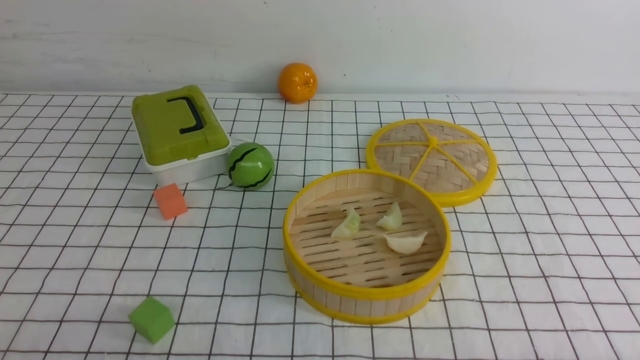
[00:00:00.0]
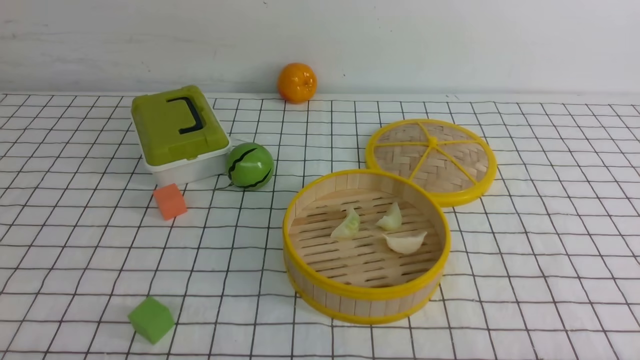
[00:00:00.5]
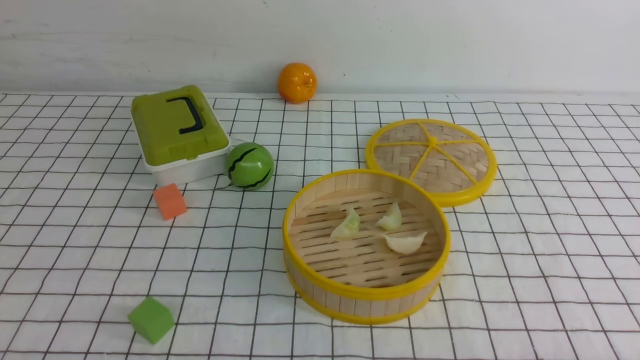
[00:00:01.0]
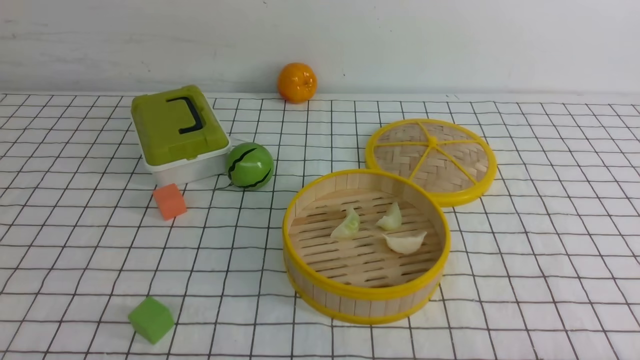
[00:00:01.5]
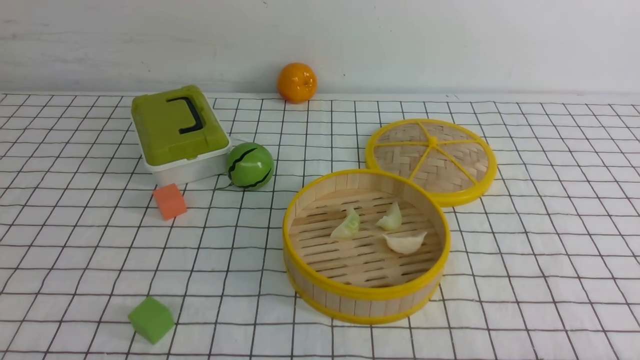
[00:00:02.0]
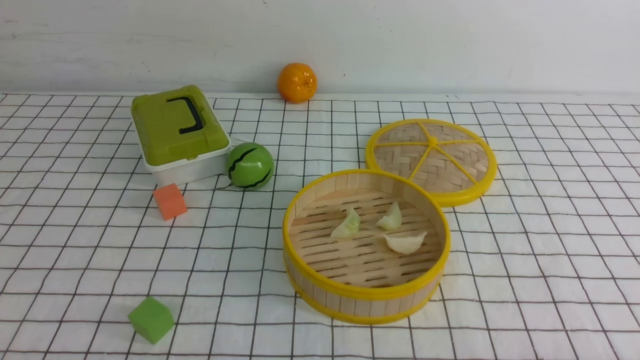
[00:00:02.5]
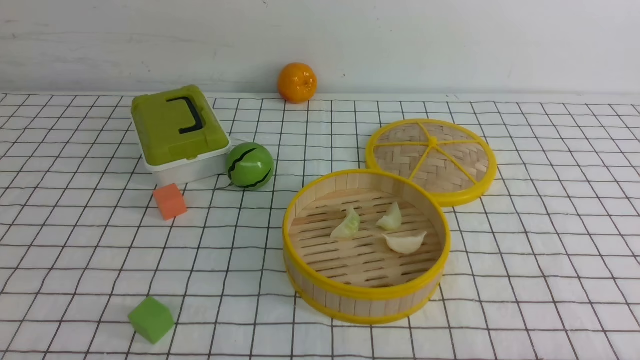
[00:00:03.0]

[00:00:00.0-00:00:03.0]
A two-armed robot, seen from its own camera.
Task of the whole recording: put the dumplings into the steamer on the table with the white tablecloth.
00:00:01.5 to 00:00:03.0: The two grippers keep their place.

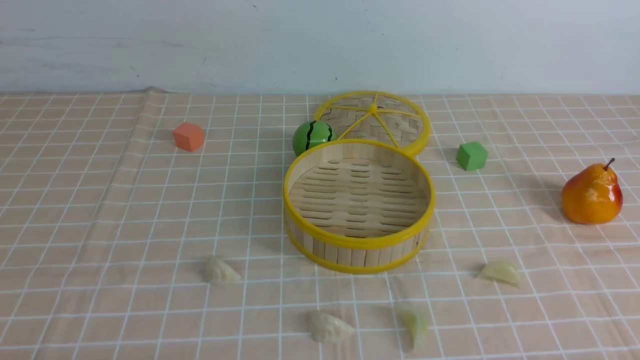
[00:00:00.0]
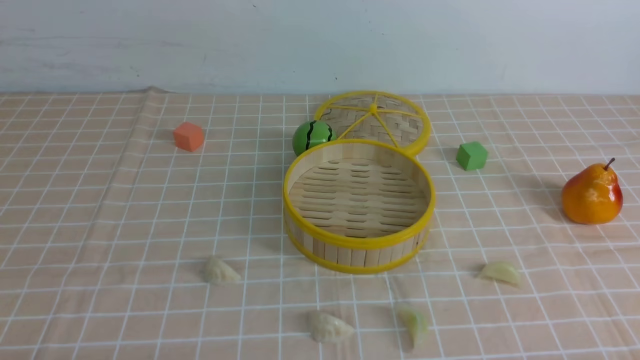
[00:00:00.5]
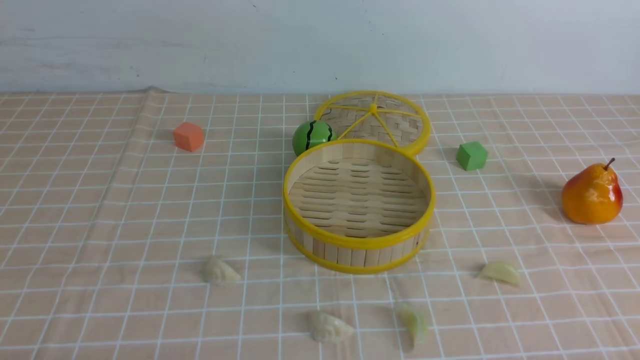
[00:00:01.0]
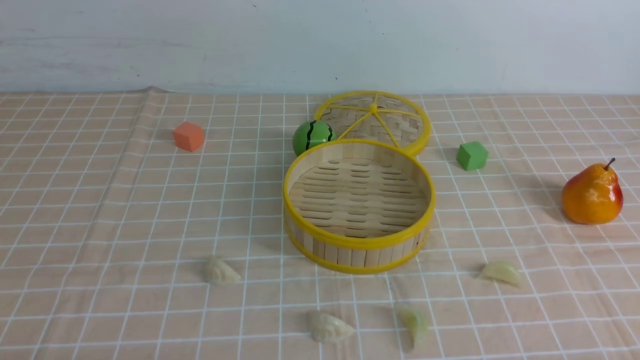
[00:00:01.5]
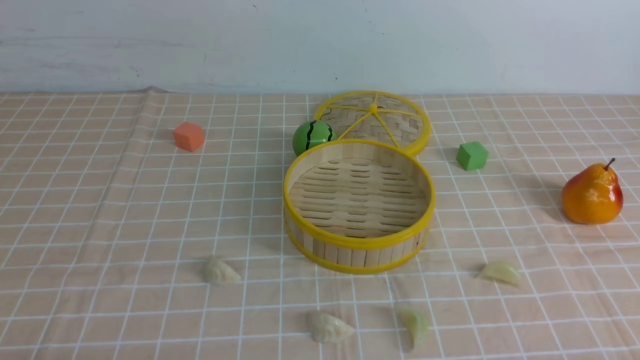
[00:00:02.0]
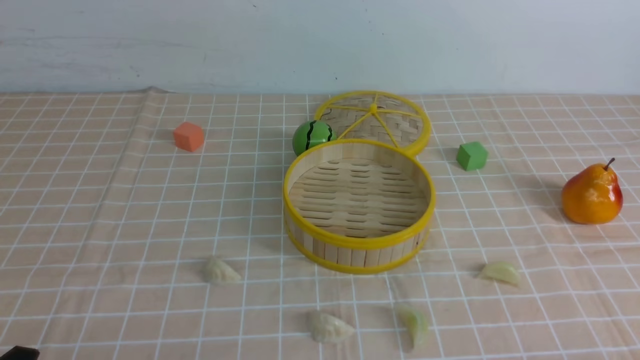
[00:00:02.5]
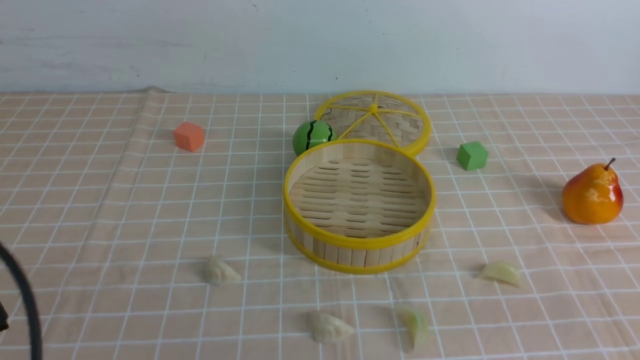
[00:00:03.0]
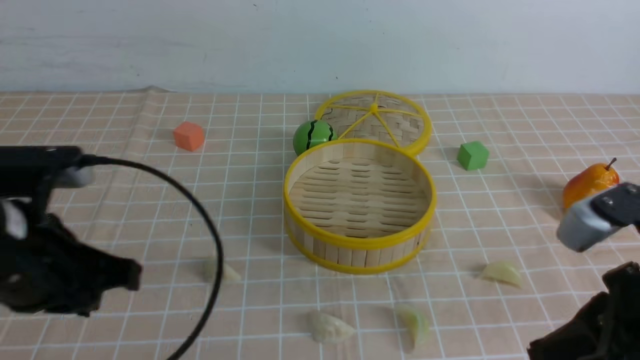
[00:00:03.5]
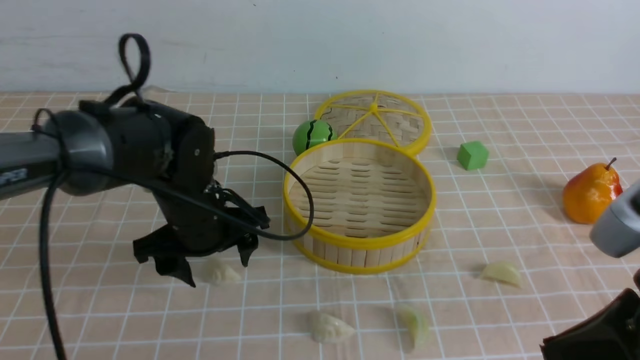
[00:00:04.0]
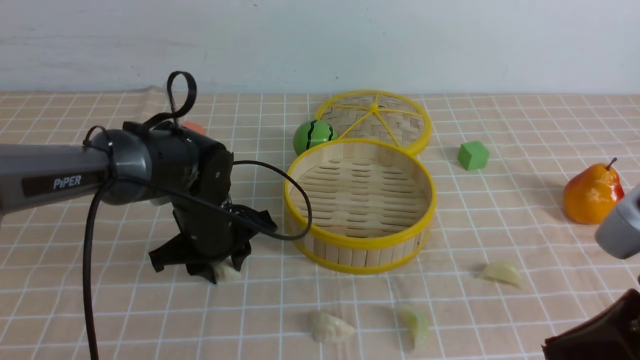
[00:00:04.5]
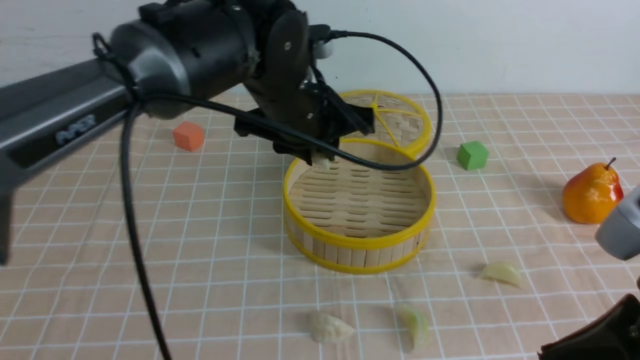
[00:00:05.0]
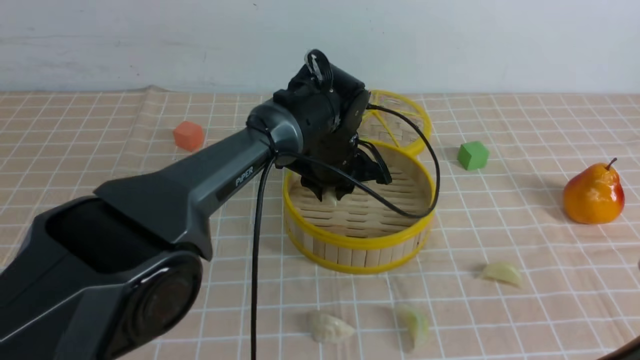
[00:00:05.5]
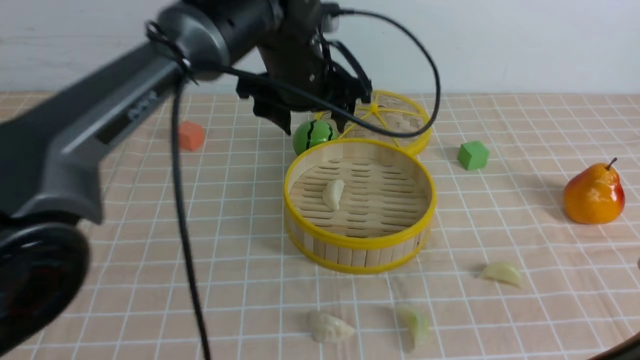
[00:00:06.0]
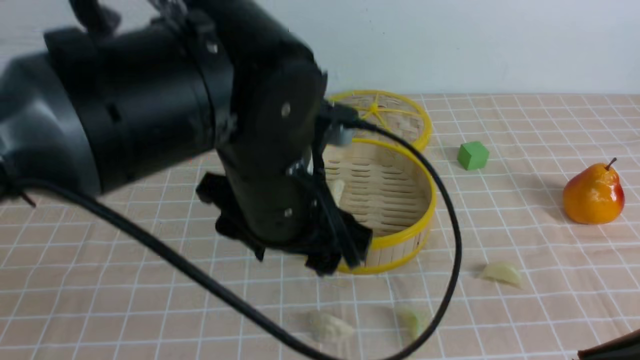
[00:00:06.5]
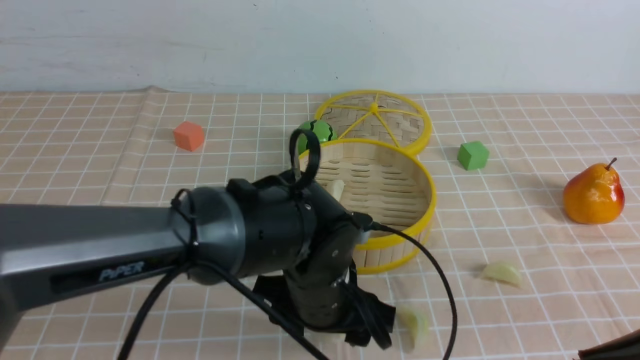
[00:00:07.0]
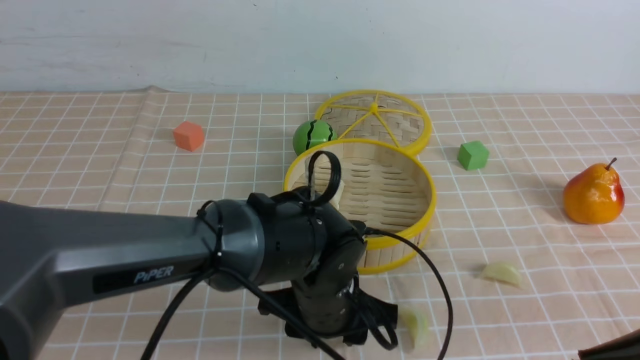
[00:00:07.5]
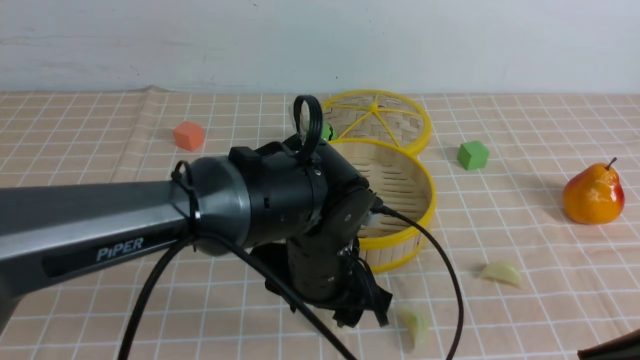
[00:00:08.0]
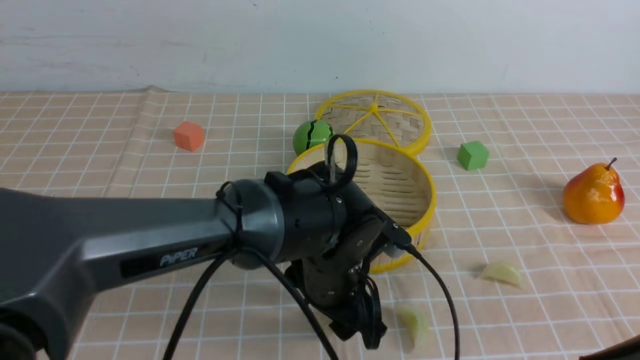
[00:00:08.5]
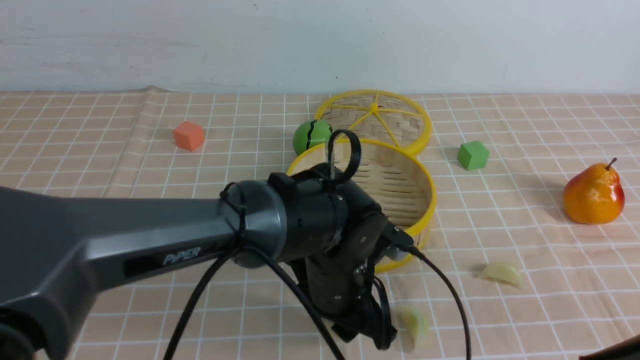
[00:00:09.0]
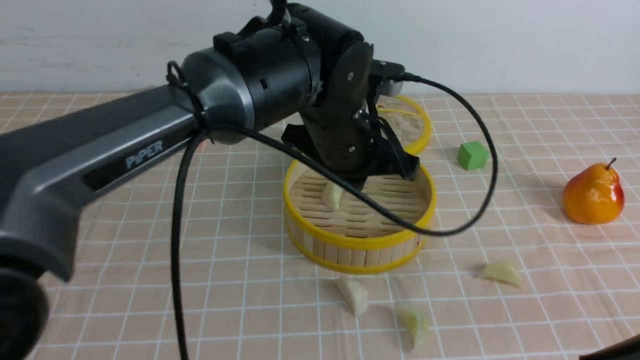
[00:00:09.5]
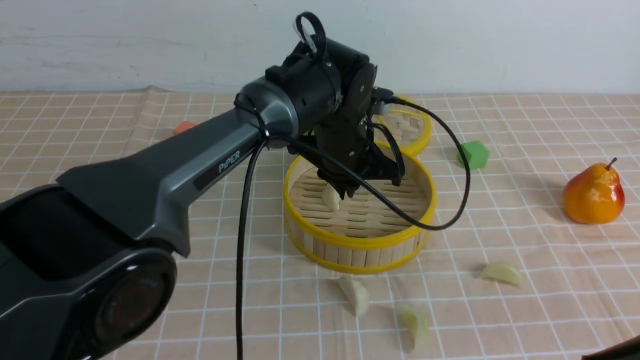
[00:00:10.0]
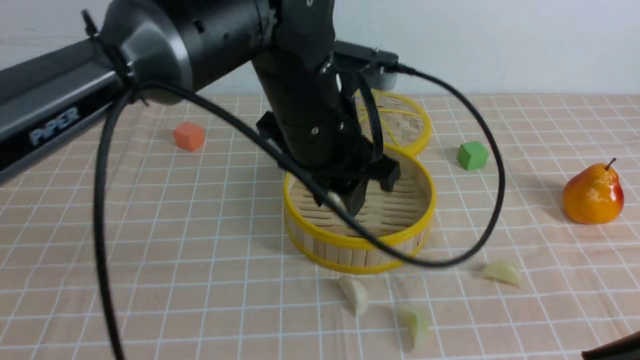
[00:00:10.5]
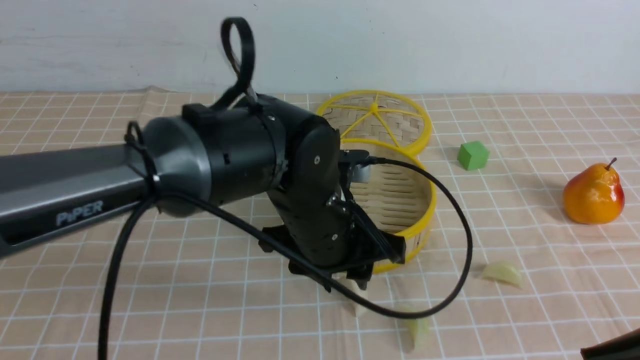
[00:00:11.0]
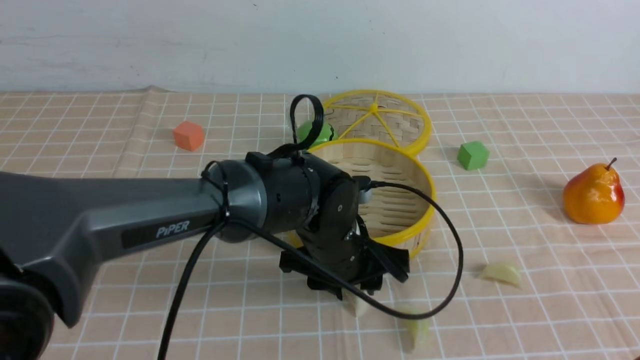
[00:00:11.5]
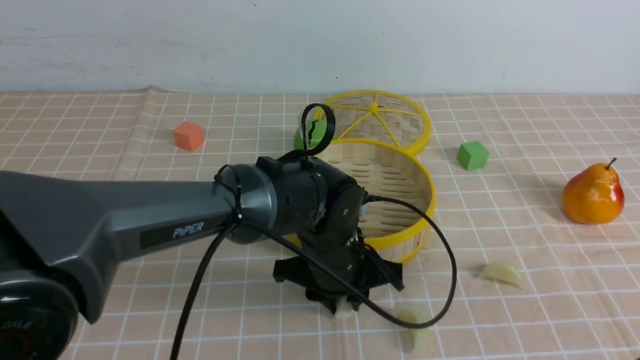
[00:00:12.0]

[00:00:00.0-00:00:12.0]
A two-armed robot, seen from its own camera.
Task of the whole recording: put the dumplings into the steamer on the table with the brown tablecloth.
Step, 00:00:00.0 to 00:00:04.5: use the left arm to grab a dumpling.
Step, 00:00:05.0 to 00:00:05.5: use the left arm to put the dumpling into the steamer.
Step, 00:00:06.0 to 00:00:11.5: use the left arm to grab a dumpling.
00:00:02.0 to 00:00:04.0: The left gripper shifts about 30 cm forward and to the right, and opens its fingers, while the right gripper goes some 20 cm upward, forward and to the left, and closes up.
00:00:04.0 to 00:00:06.0: The left gripper swings up and down, some 15 cm each way, with 2 reversals, and closes and opens again.
00:00:06.0 to 00:00:08.0: The left gripper is displaced downward and backward by roughly 20 cm.
00:00:08.0 to 00:00:10.0: The left gripper moves forward and upward, about 15 cm, and closes up.
00:00:10.0 to 00:00:12.0: The left gripper travels backward and downward by some 10 cm.

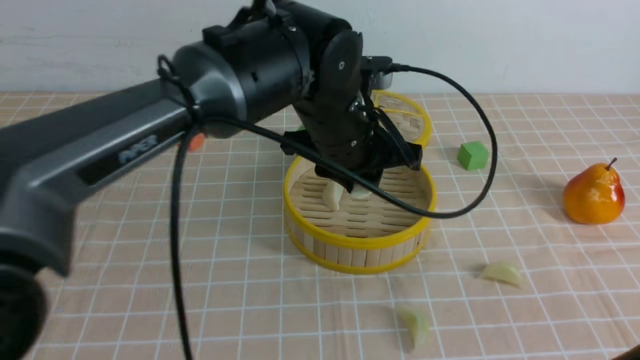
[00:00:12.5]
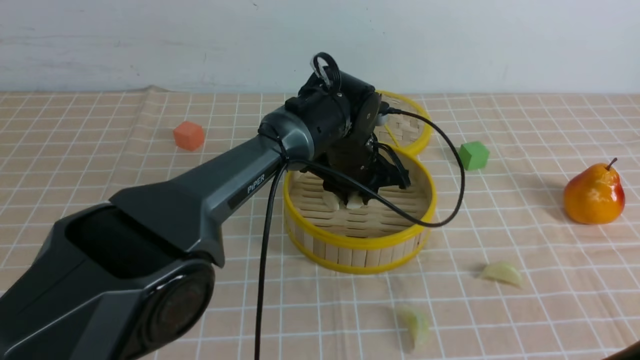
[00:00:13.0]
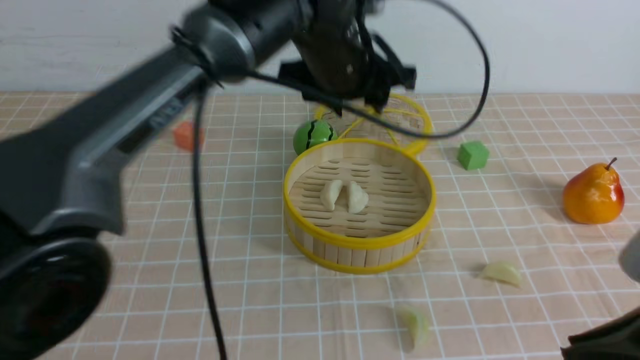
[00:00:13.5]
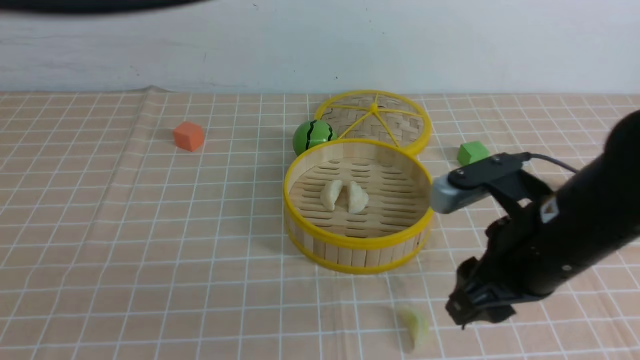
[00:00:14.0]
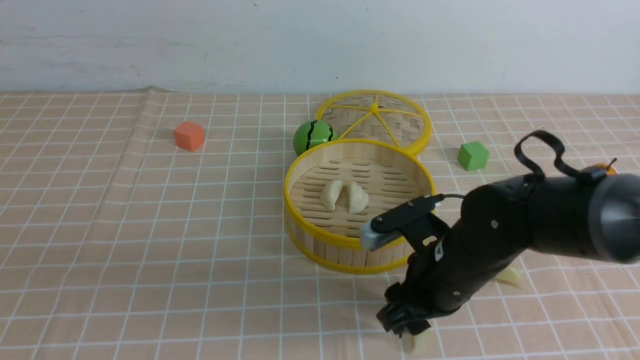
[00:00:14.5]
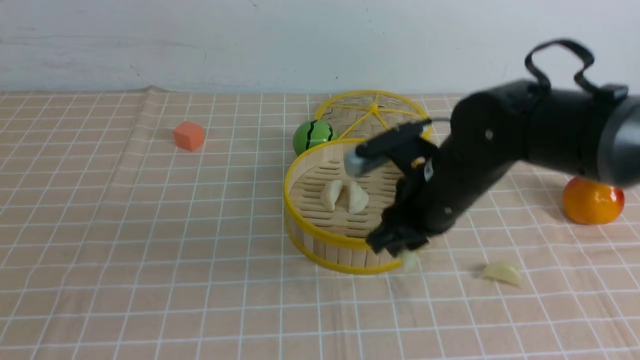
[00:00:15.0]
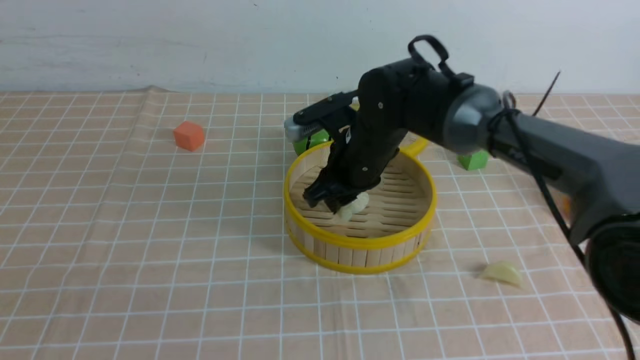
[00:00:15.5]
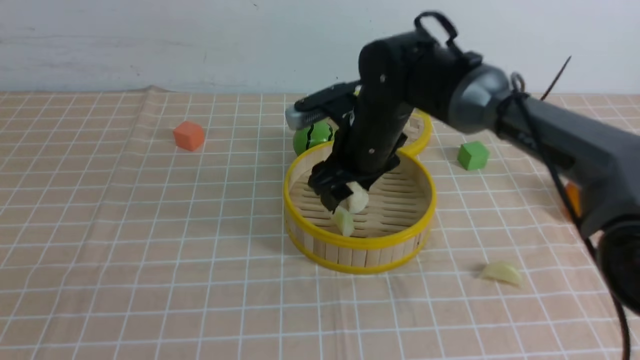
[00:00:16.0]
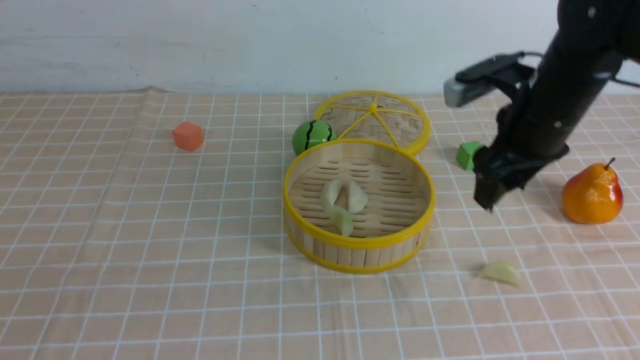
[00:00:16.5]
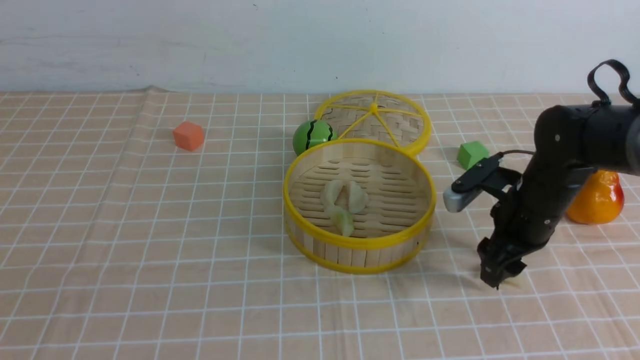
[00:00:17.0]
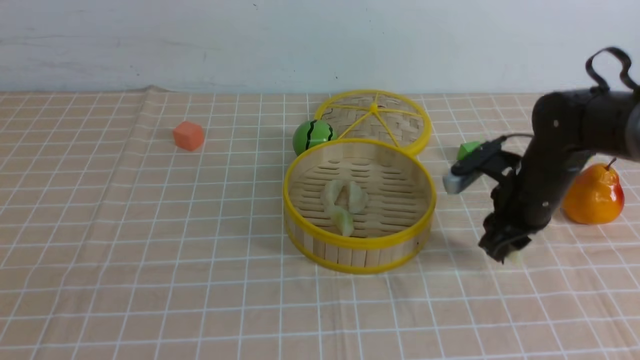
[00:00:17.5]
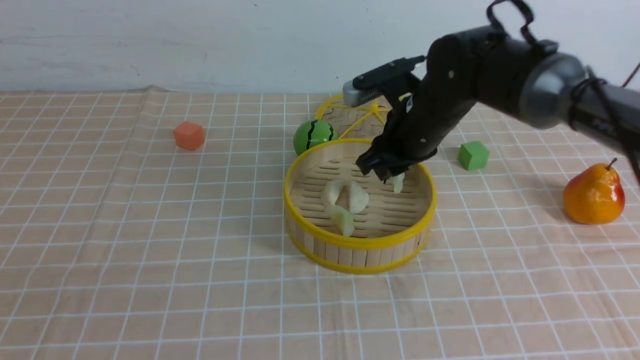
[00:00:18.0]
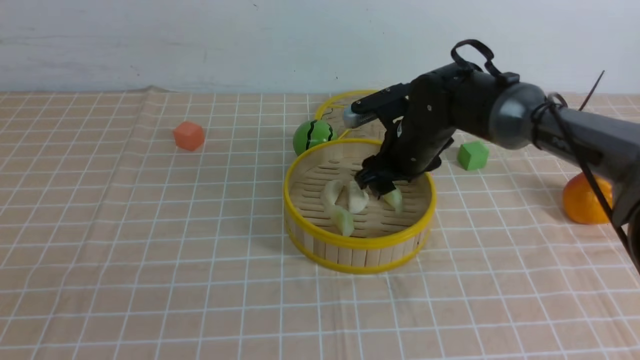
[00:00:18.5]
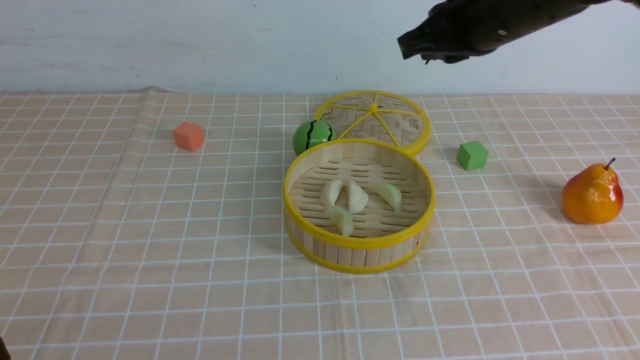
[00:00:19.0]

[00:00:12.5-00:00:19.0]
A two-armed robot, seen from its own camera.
Task of the whole recording: put the dumplings into the steamer on the table with the brown tablecloth.
Step, 00:00:13.5 to 00:00:14.5: use the right arm to grab a dumpling.
Step, 00:00:15.0 to 00:00:16.0: use the right arm to put the dumpling into the steamer.
Step, 00:00:16.5 to 00:00:17.0: use the right arm to grab a dumpling.
Step, 00:00:17.5 to 00:00:18.5: use the right arm to put the dumpling into the steamer.
00:00:12.5 to 00:00:14.5: The right gripper travels forward, downward and to the left by approximately 25 cm, and opens its fingers, while the left gripper is displaced backward, to the left and upward by about 40 cm, and closes.
00:00:14.5 to 00:00:17.0: The right gripper travels to the right and forward by roughly 15 cm.
00:00:17.0 to 00:00:19.0: The right gripper is displaced upward by about 20 cm, and closes up. Meanwhile the left gripper travels downward by approximately 10 cm.
